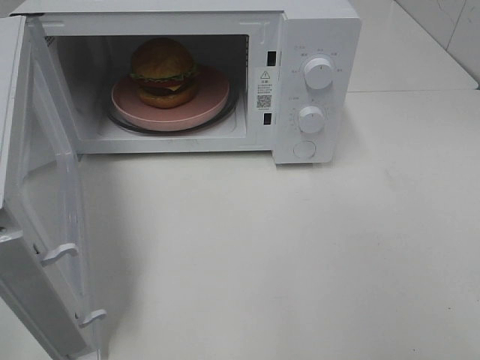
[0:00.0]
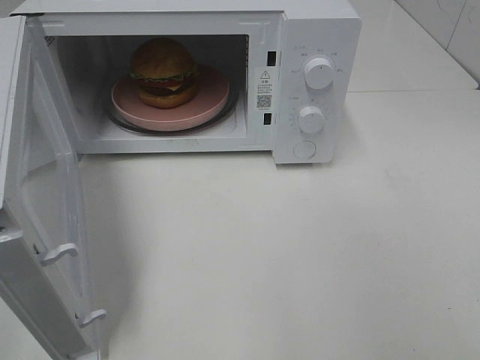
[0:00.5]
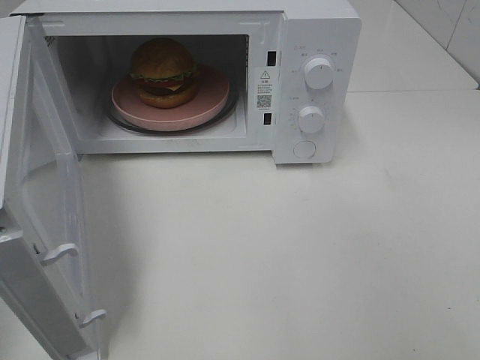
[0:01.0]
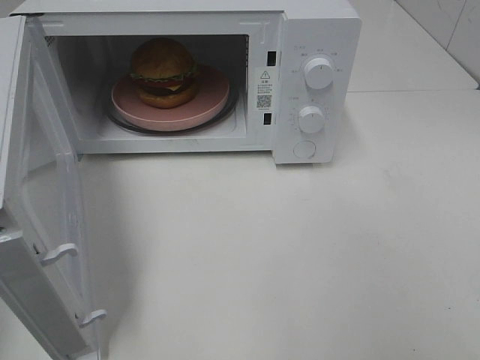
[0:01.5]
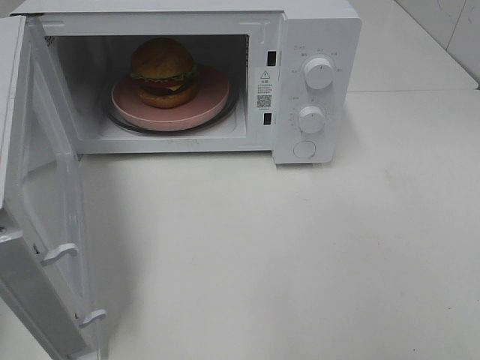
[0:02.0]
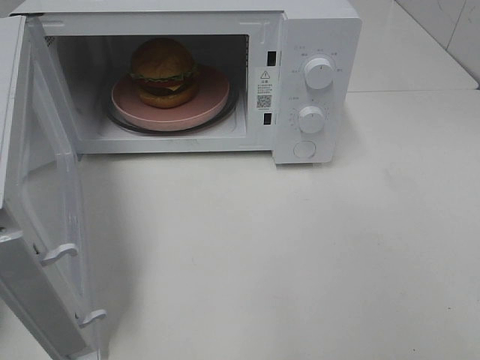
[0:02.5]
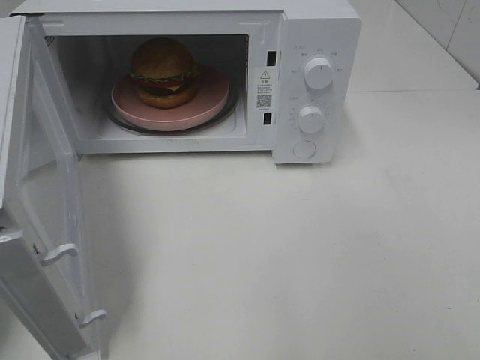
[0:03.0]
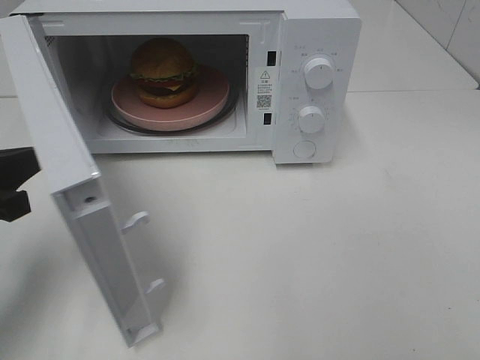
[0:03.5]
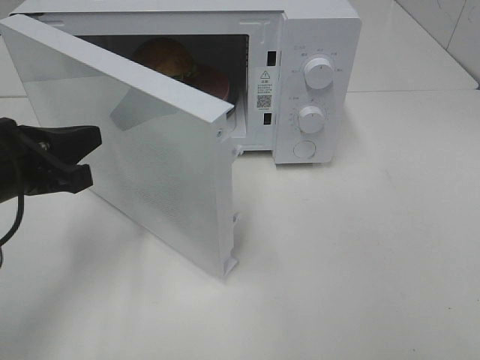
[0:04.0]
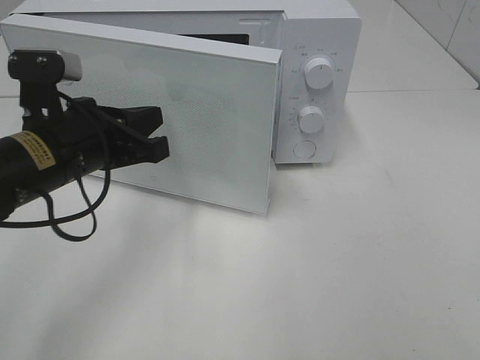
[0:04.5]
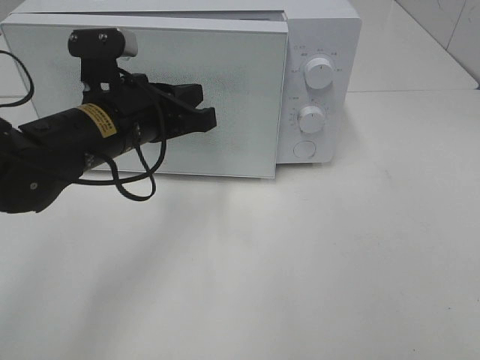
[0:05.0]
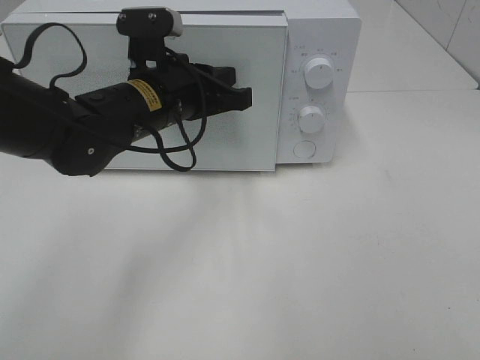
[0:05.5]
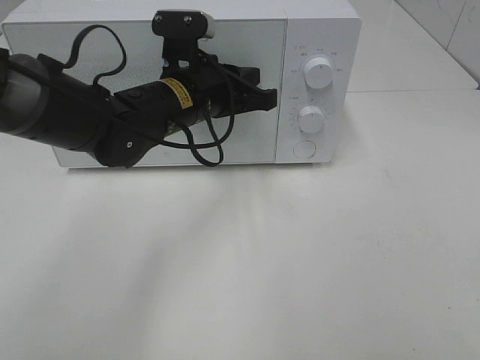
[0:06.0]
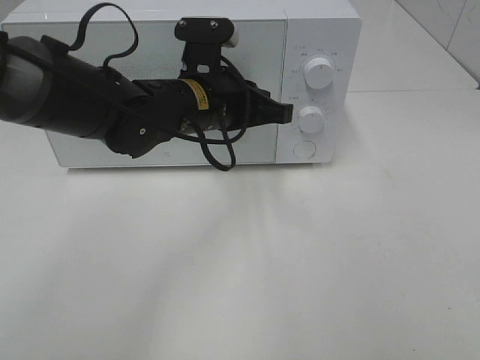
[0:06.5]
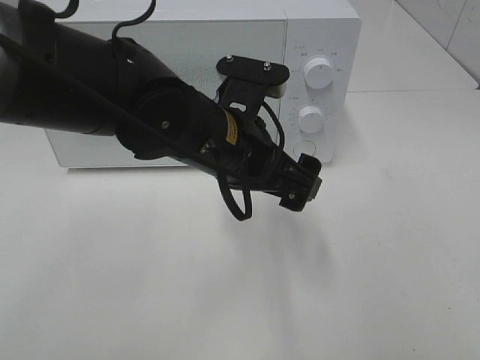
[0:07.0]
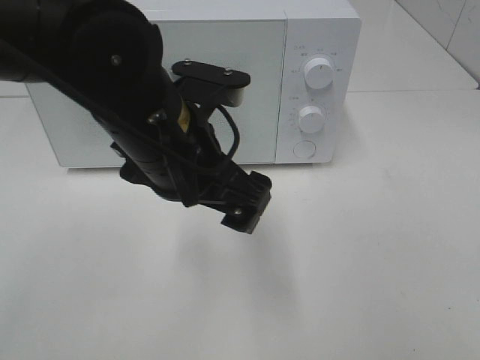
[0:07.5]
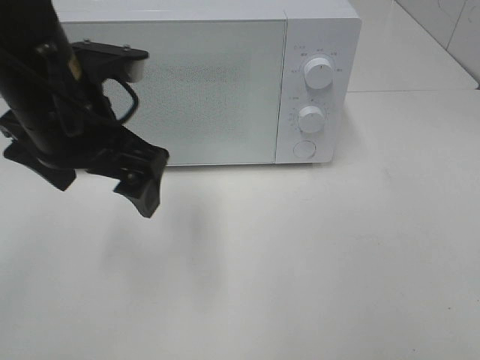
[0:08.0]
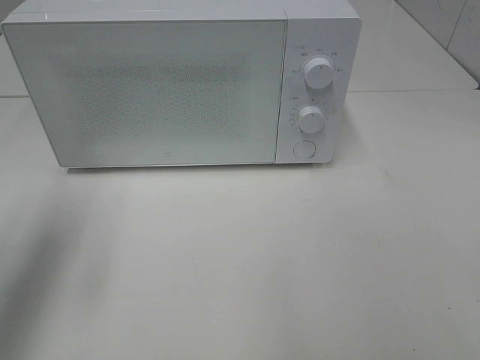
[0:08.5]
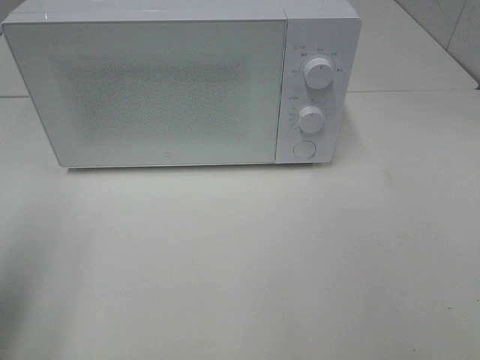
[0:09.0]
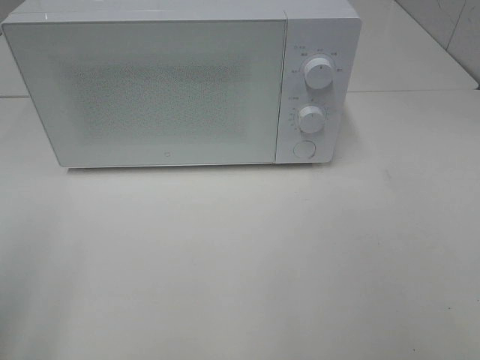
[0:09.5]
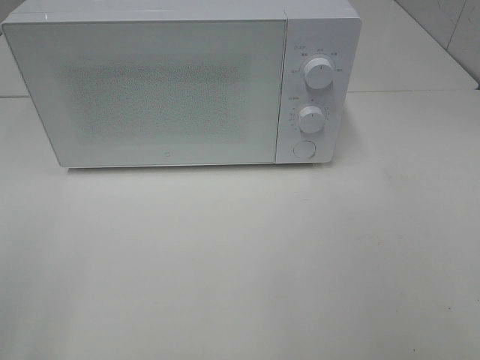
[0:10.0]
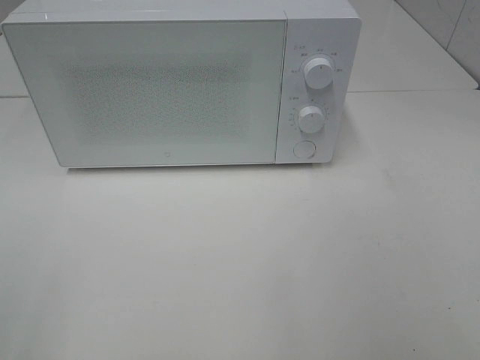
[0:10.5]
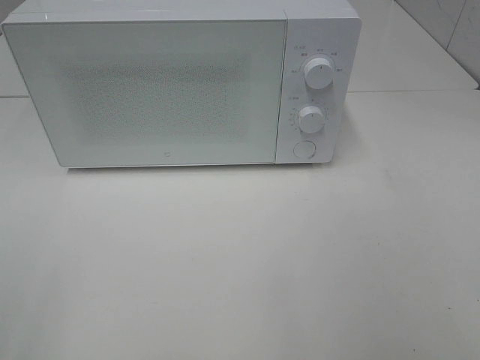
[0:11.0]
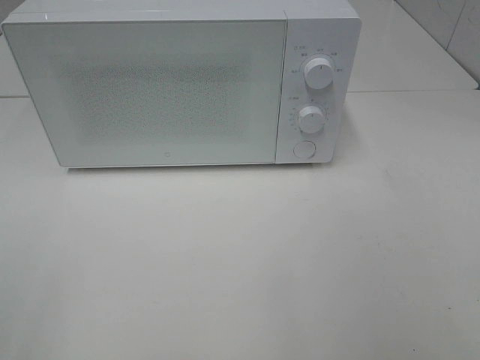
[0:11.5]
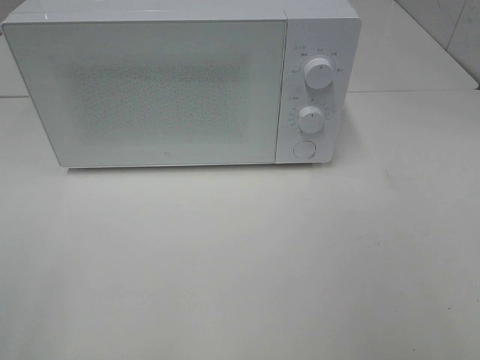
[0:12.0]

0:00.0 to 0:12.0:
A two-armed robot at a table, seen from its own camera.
Task of the whole recording: Heat the burger.
Step, 0:00.0 to 0:06.0: Left hand: close the microwave door.
0:02.0 to 0:04.0: The left gripper moves forward, to the right and downward, some 20 cm.
0:04.0 to 0:06.0: The left gripper heads to the right and forward, covering approximately 20 cm.
0:06.0 to 0:08.0: The left gripper travels backward, to the left and upward by about 15 cm, and opens its fingers.
0:08.0 to 0:10.0: The left gripper is displaced backward and to the left by some 30 cm.

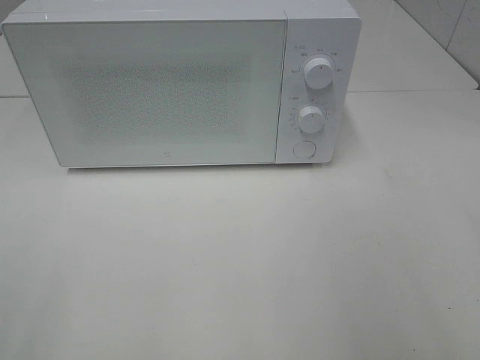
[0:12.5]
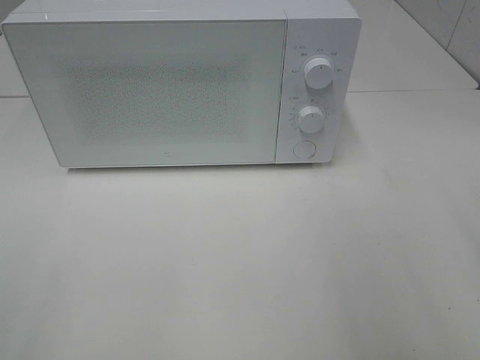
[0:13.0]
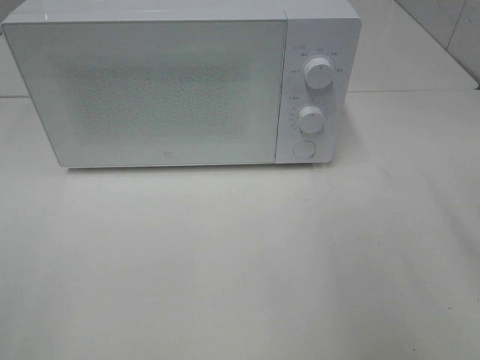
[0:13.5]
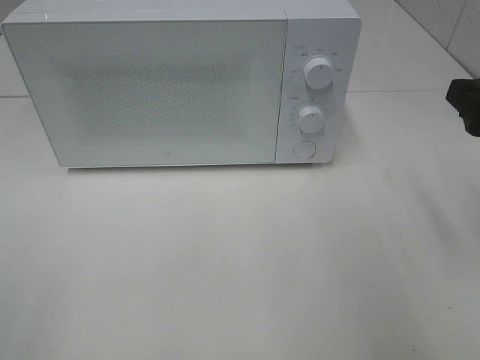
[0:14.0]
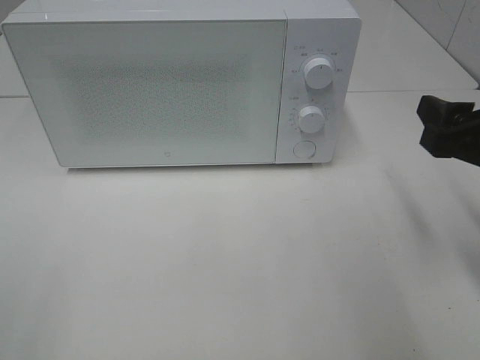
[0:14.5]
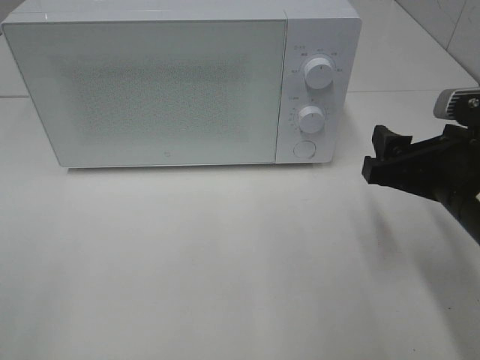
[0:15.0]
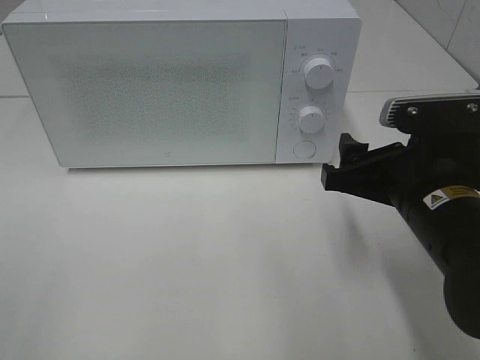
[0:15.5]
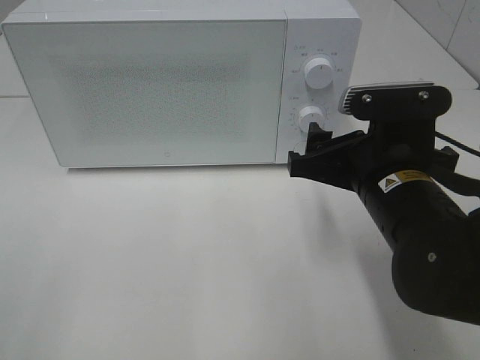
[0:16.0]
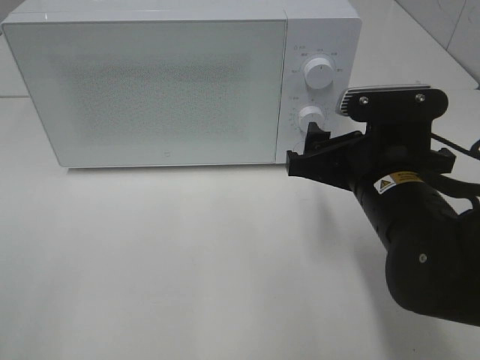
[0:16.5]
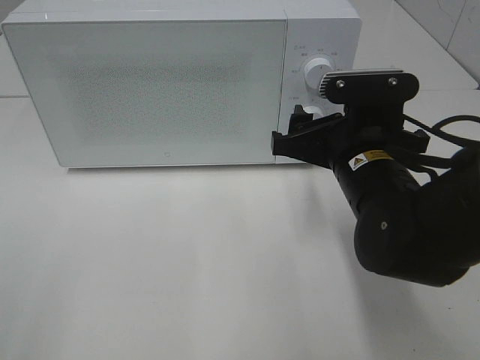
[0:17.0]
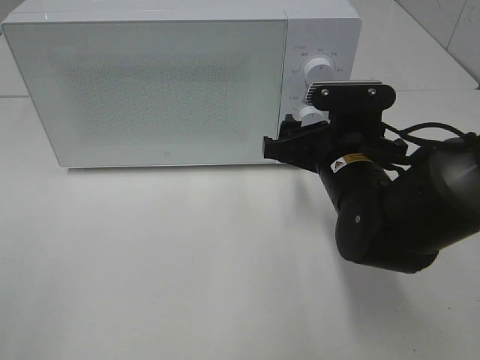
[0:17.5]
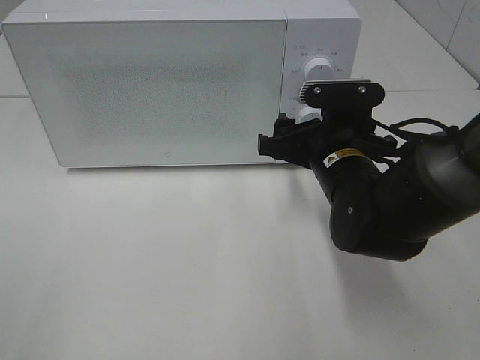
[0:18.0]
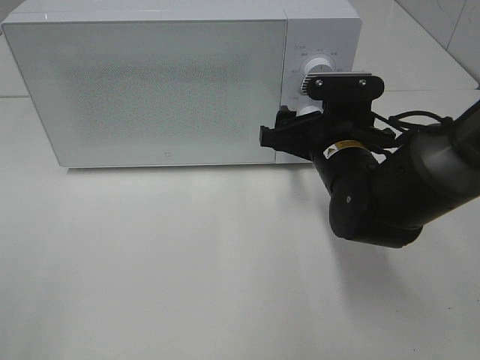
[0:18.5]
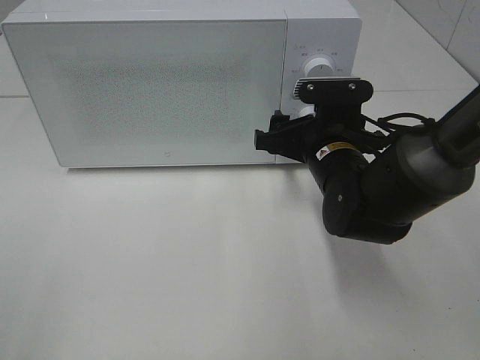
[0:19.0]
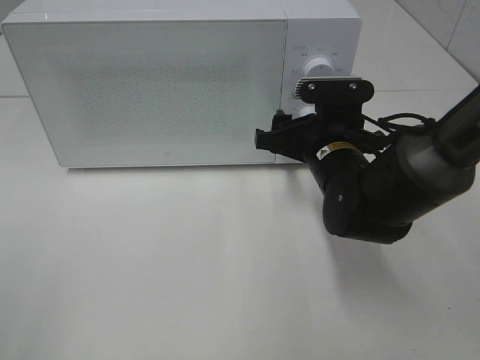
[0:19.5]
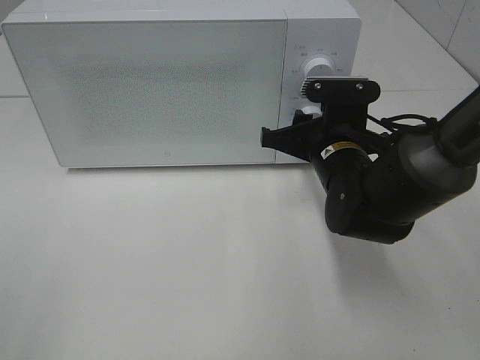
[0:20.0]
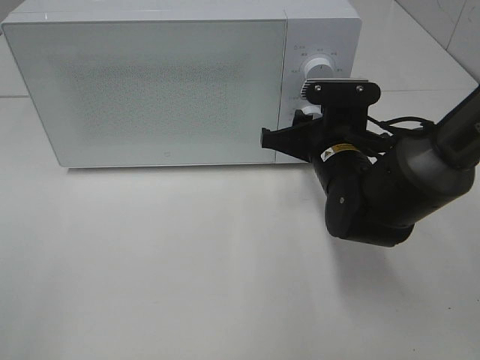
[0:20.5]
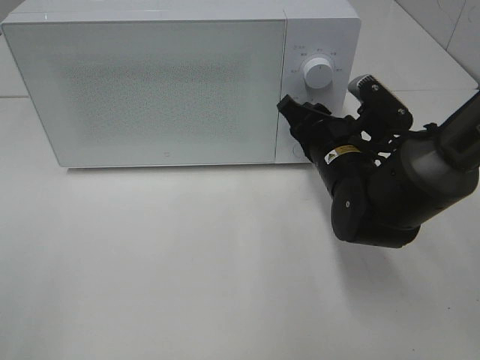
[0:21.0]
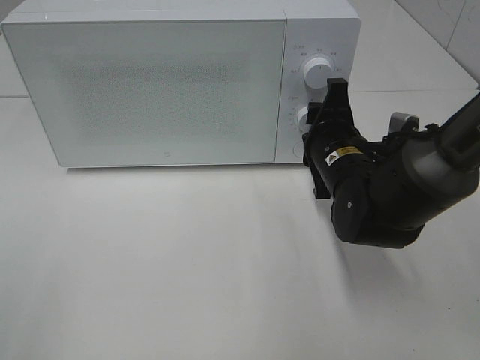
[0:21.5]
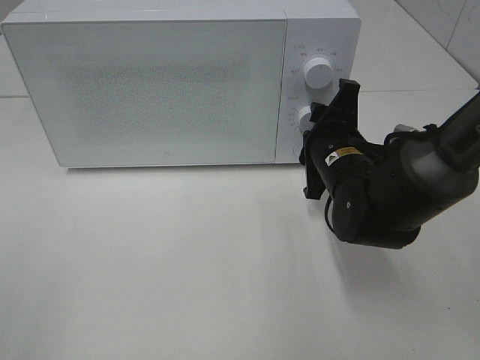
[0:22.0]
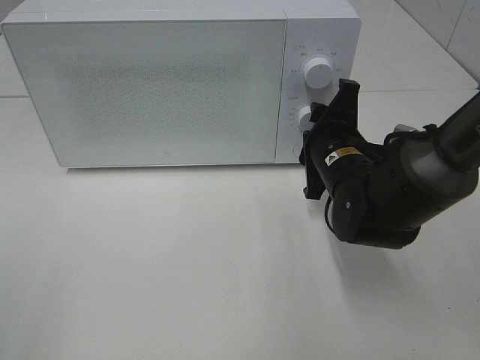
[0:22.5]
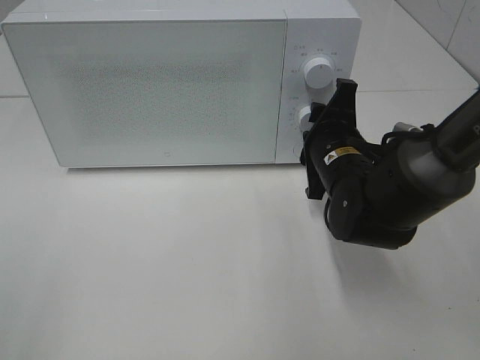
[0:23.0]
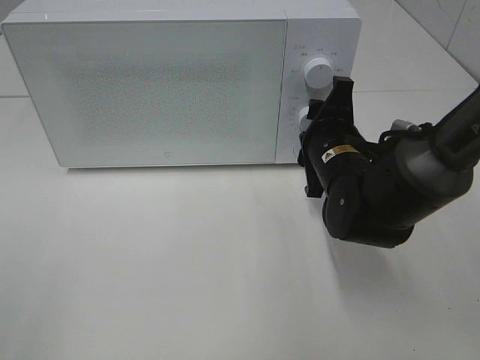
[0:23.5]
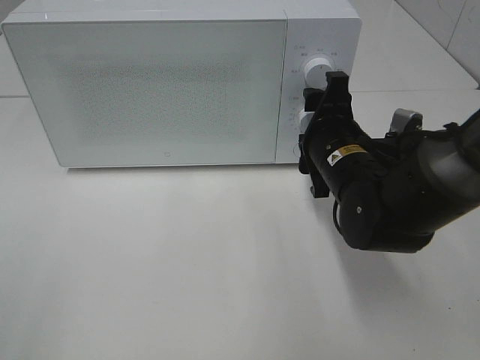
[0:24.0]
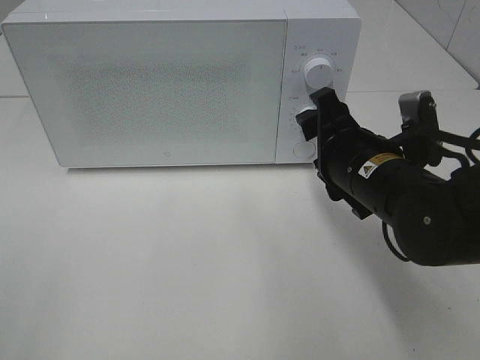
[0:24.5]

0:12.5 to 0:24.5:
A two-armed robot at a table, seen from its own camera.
Task of the whole recording: Heat the burger.
Step, 0:12.5 to 0:23.5: Right hand: twist timer button.
0:12.5 to 0:14.5: The right gripper is displaced forward and downward by approximately 15 cm.
0:14.5 to 0:16.5: The right gripper is displaced to the left by approximately 10 cm.
0:16.5 to 0:18.5: The right gripper shifts approximately 10 cm forward.
0:18.5 to 0:20.5: The right gripper closes.
0:22.5 to 0:24.5: The right gripper travels backward by some 5 cm.

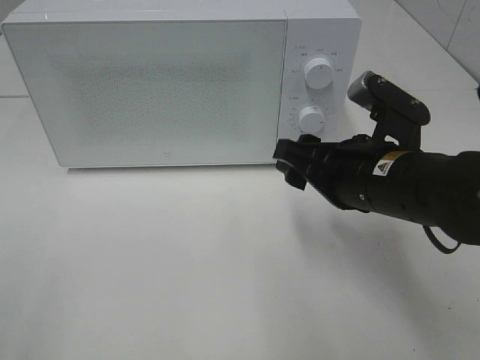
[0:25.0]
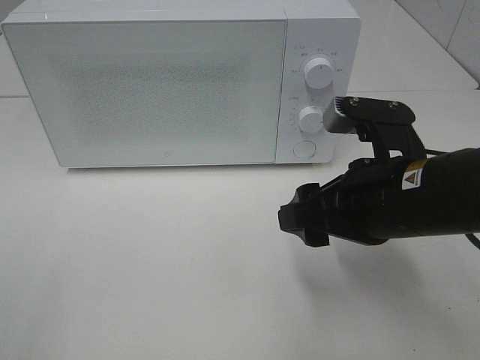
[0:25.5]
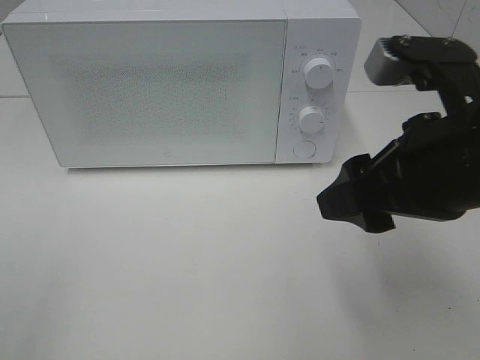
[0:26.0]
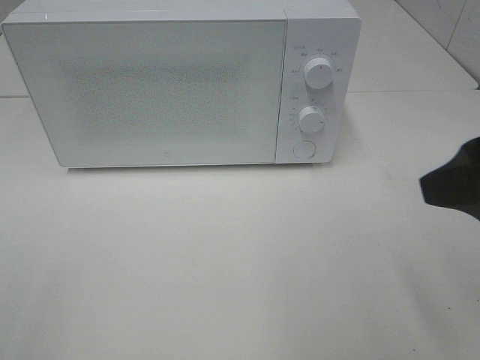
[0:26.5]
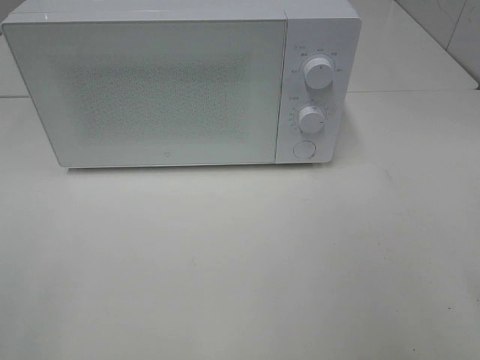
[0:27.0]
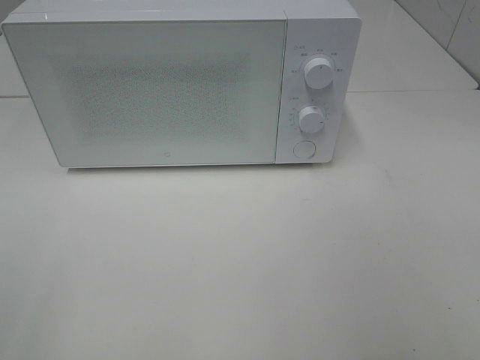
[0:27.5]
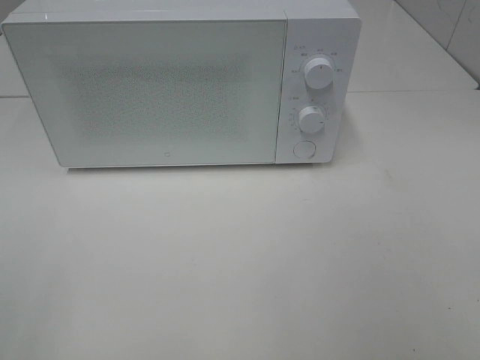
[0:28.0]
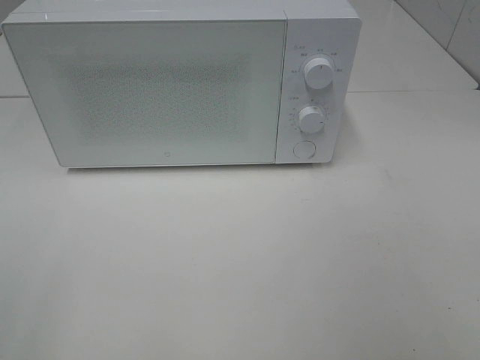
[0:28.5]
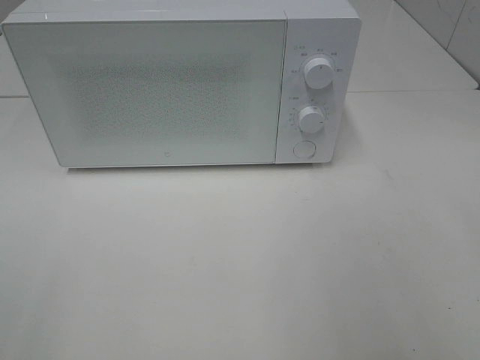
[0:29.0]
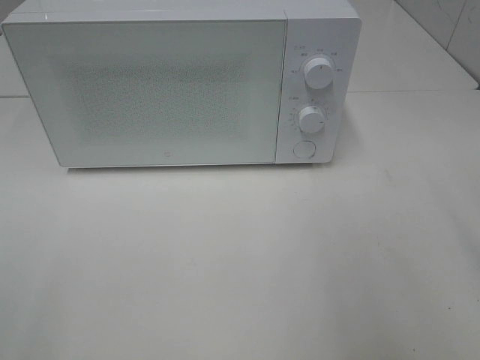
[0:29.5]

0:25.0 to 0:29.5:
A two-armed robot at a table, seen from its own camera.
Task of the whole recording: Heat the burger.
0:25.0 to 0:27.0: The right gripper travels backward, to the right and upward by roughly 25 cm.
